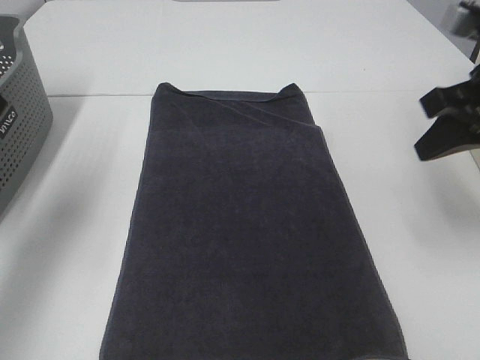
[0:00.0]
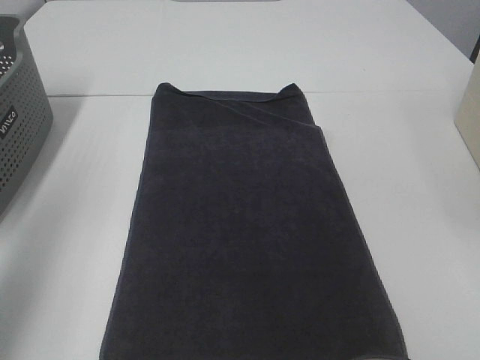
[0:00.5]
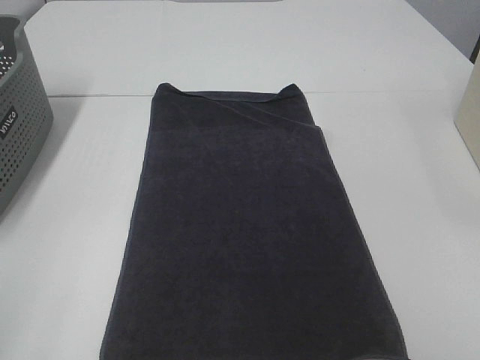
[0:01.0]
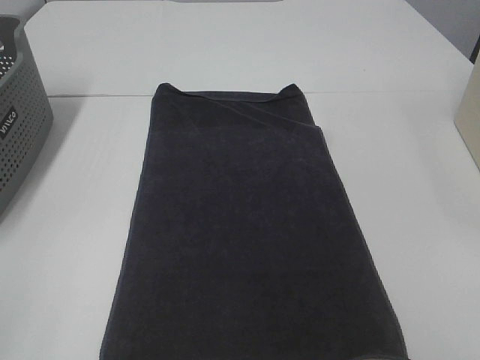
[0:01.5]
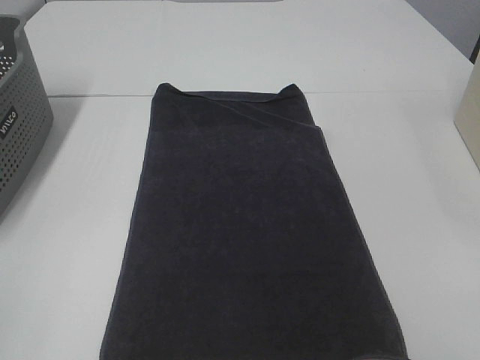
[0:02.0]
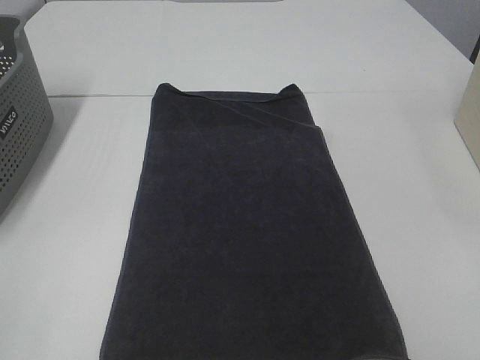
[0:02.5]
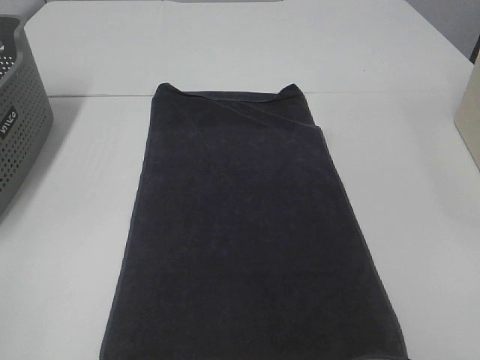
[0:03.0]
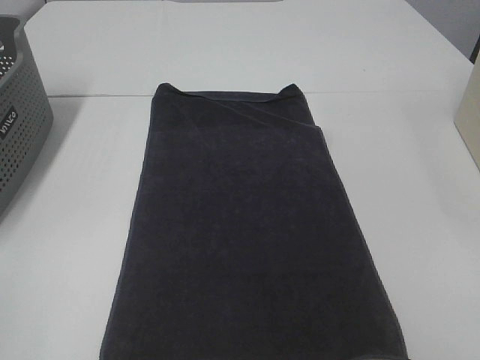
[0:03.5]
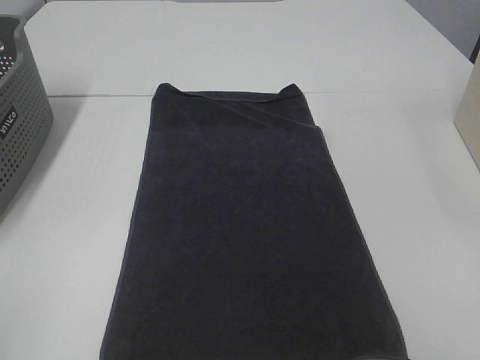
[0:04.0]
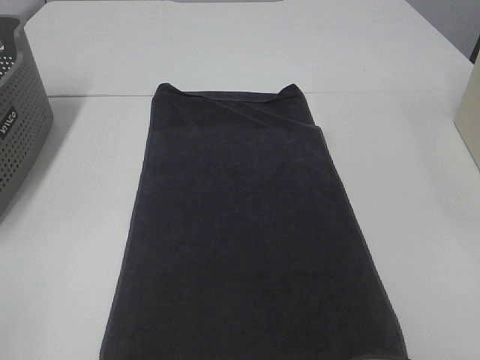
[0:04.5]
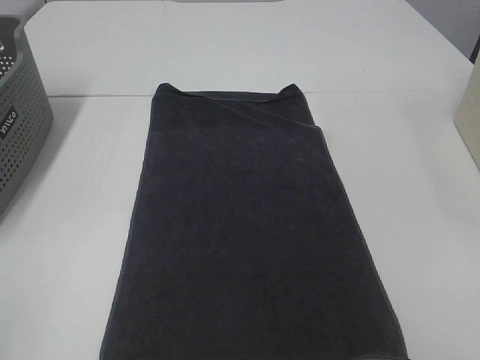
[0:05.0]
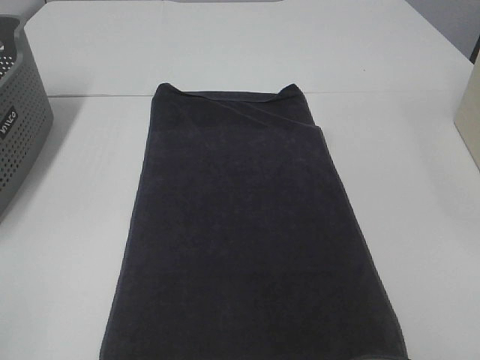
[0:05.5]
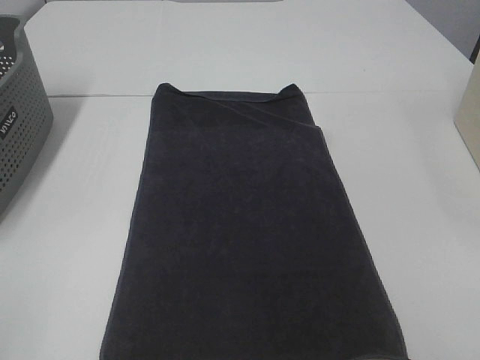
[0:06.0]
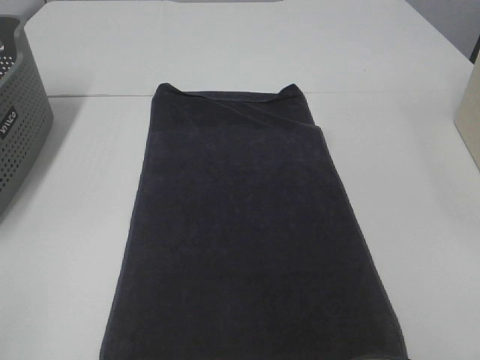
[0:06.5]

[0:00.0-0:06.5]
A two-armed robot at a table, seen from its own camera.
Task of the whole recording: Remove the towel and place it.
0:00.0 to 0:02.0: The two grippers go about 30 cm backward.

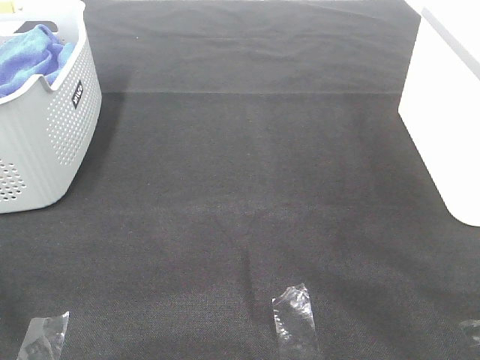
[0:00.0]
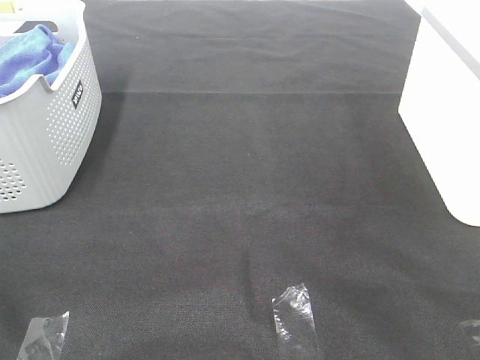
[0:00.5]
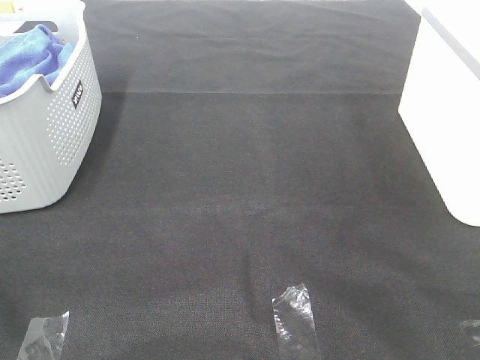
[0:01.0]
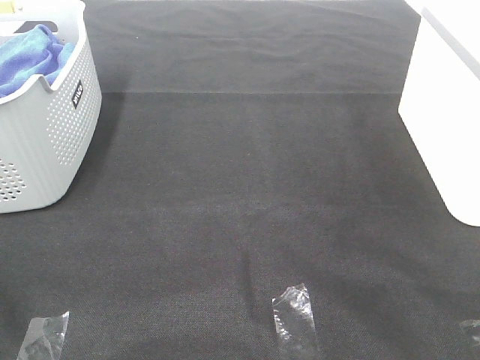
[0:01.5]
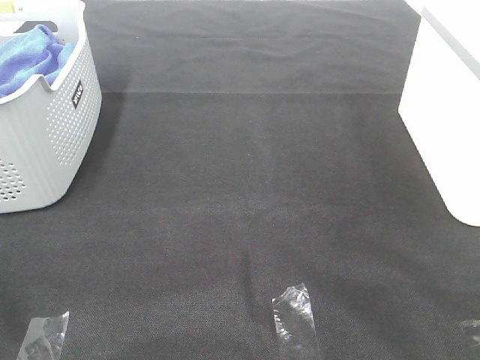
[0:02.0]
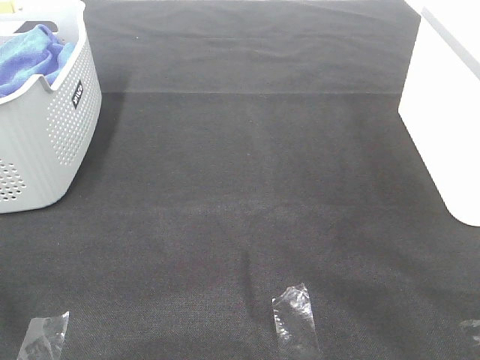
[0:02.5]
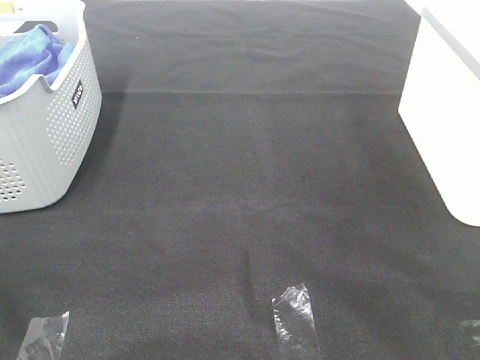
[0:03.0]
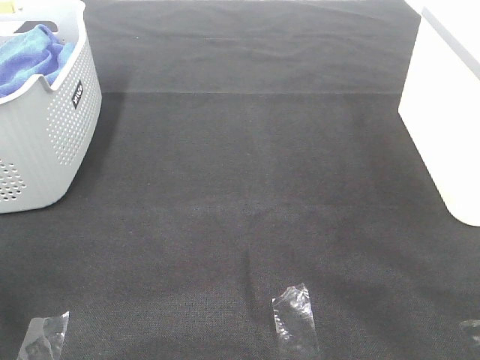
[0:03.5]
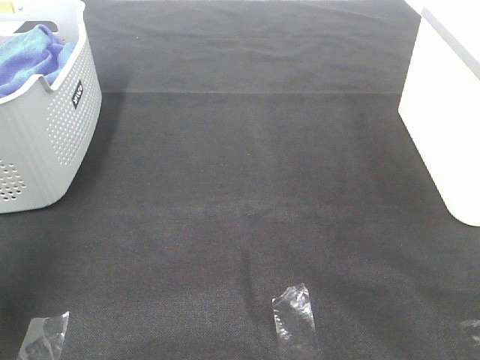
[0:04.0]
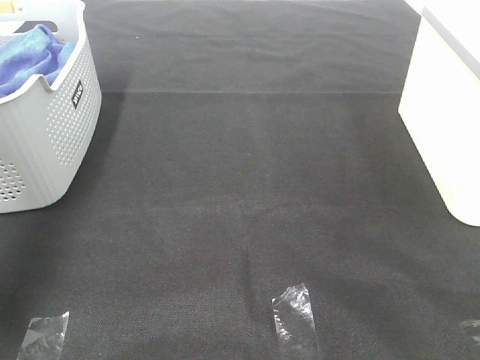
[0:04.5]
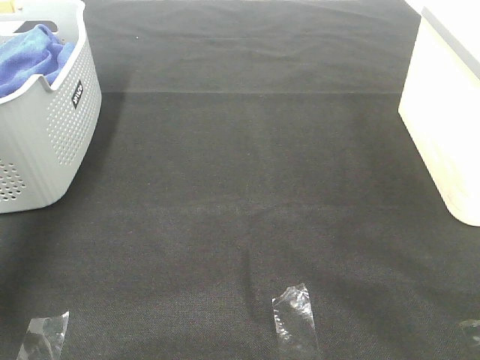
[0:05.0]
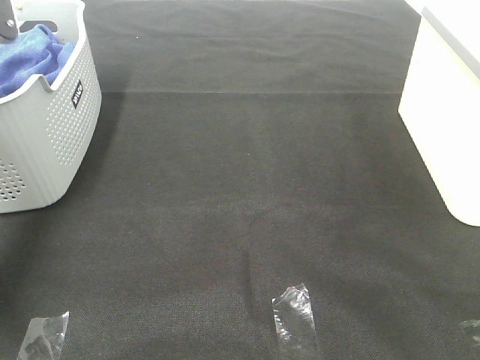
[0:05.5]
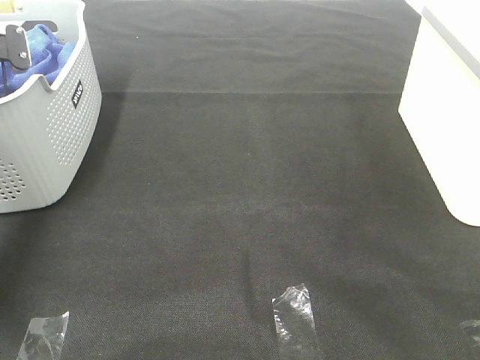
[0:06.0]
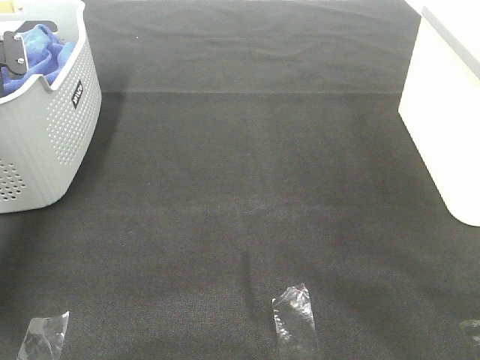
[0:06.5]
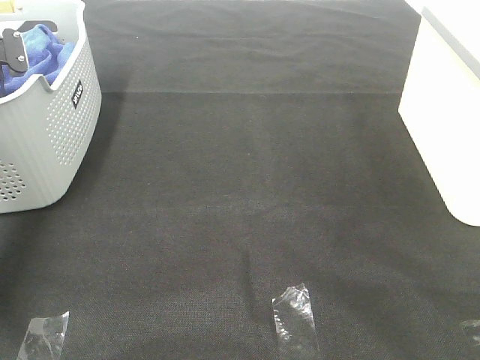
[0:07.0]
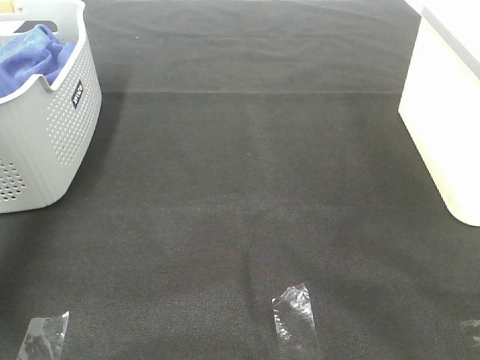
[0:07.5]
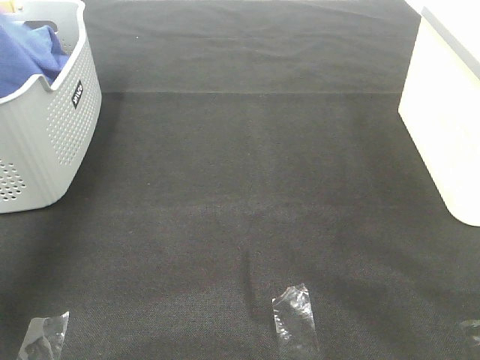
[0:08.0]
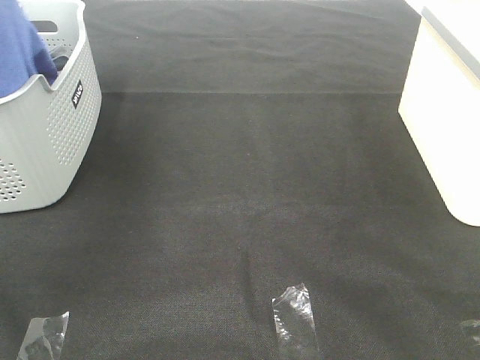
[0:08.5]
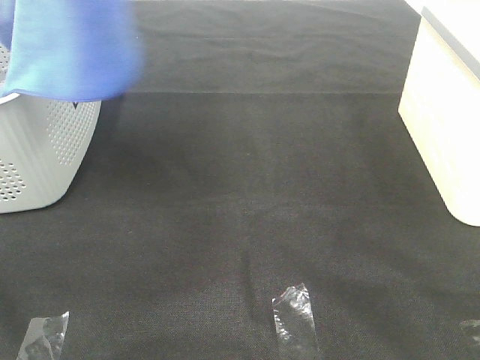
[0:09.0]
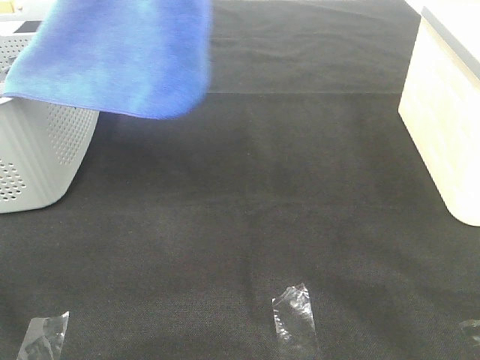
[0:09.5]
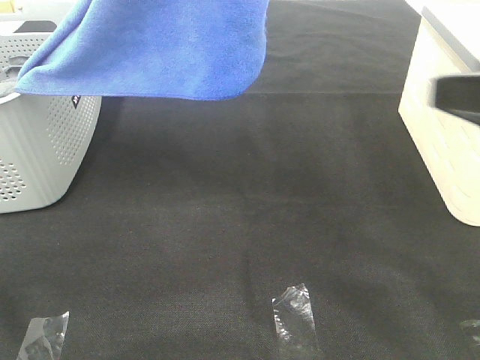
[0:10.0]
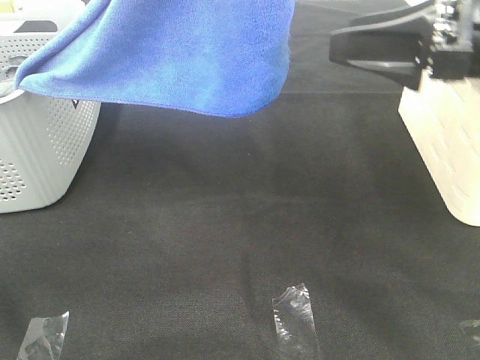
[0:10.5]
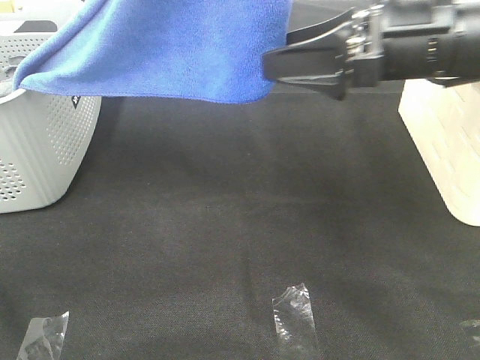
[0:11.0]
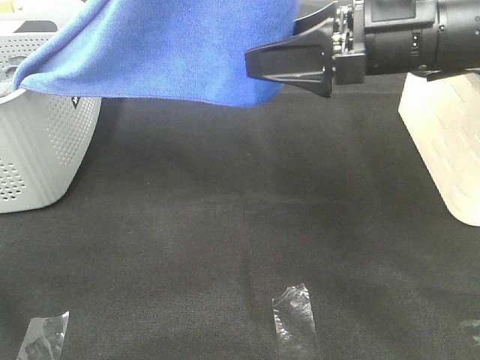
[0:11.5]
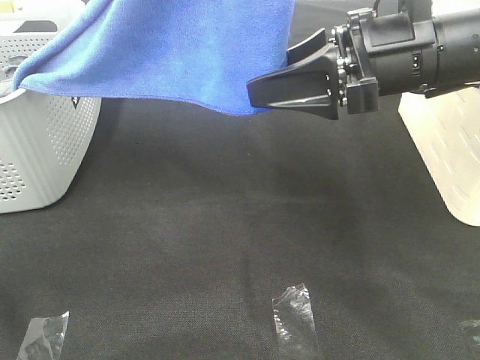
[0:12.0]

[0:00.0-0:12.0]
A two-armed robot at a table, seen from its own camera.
Task of the whole recording: Remove the towel and place it.
0:00.0 to 0:02.0: Both grippers stay put.
0:02.0 to 0:04.0: The left gripper shifts about 25 cm forward and upward.
0:04.0 to 0:06.0: The left gripper goes some 40 cm forward and downward.
0:06.0 to 0:08.0: The left gripper heads upward and backward, covering approximately 30 cm, and closes.
0:08.0 to 0:10.0: The left gripper is displaced to the right by approximately 25 cm; the right gripper shifts some 15 cm forward.
0:10.0 to 0:12.0: The right gripper heads forward and to the left, covering about 15 cm.

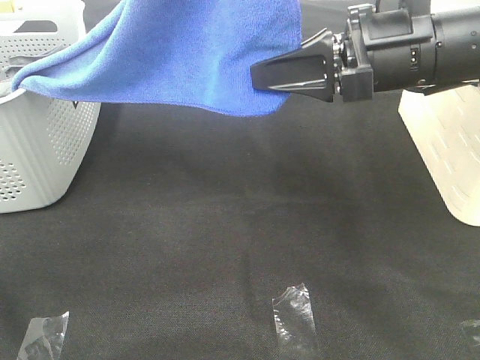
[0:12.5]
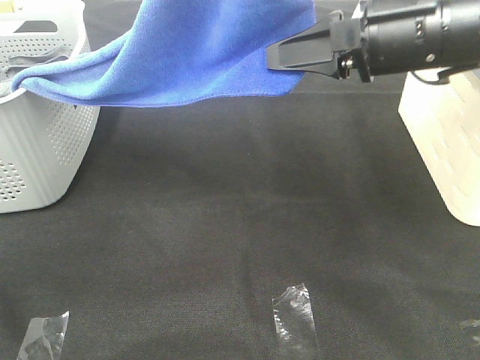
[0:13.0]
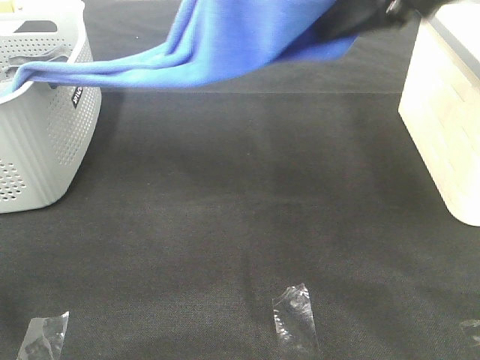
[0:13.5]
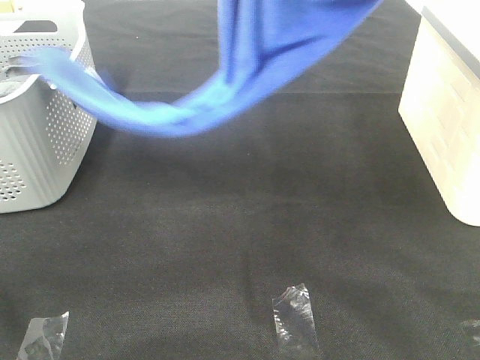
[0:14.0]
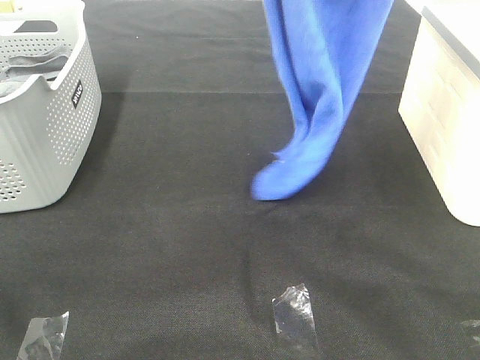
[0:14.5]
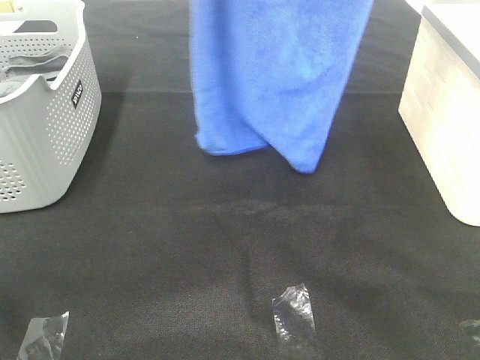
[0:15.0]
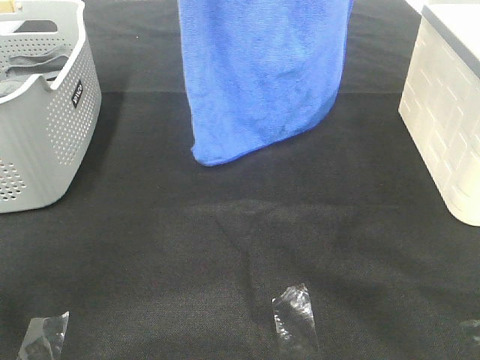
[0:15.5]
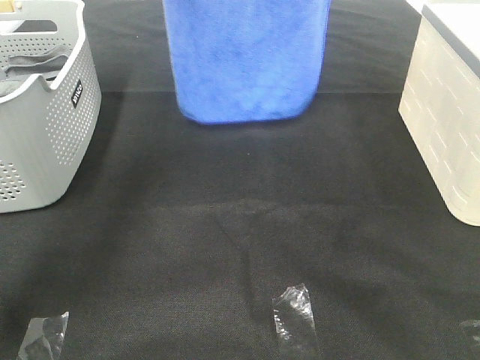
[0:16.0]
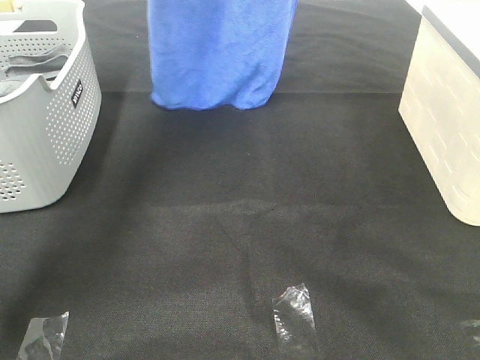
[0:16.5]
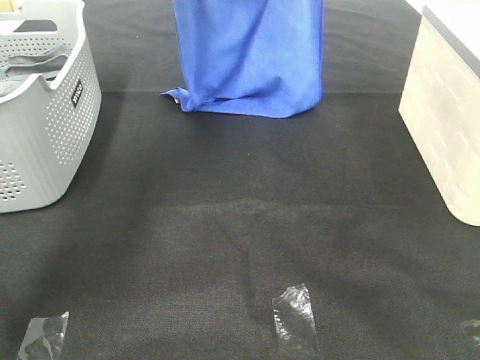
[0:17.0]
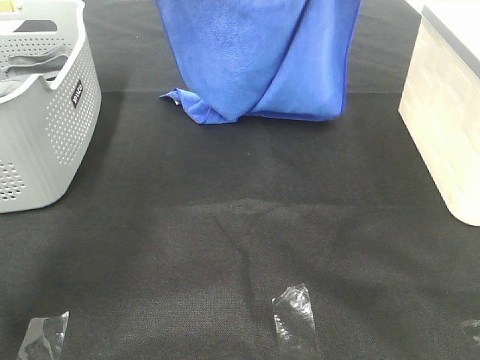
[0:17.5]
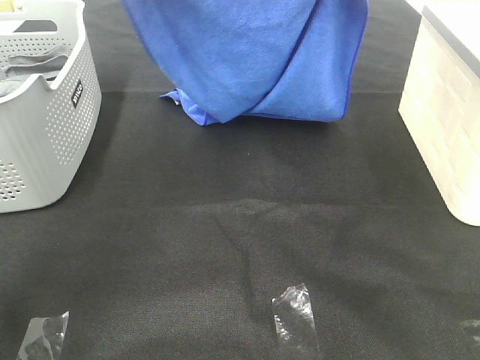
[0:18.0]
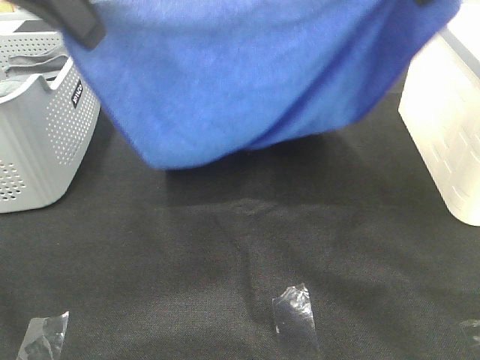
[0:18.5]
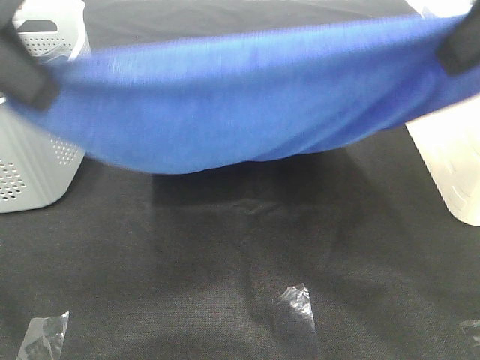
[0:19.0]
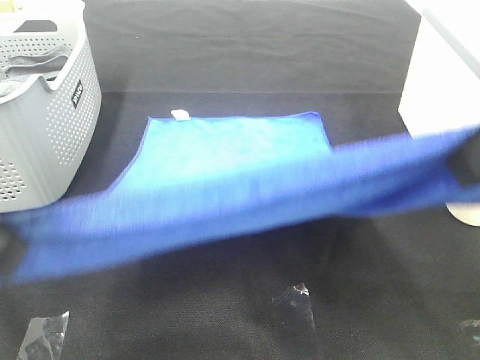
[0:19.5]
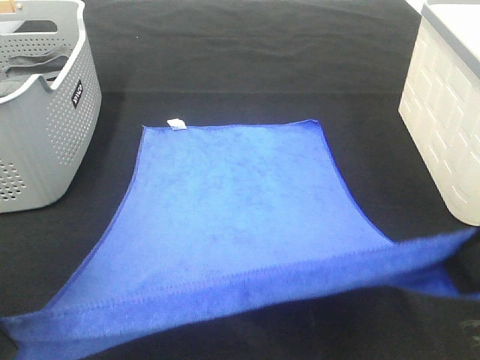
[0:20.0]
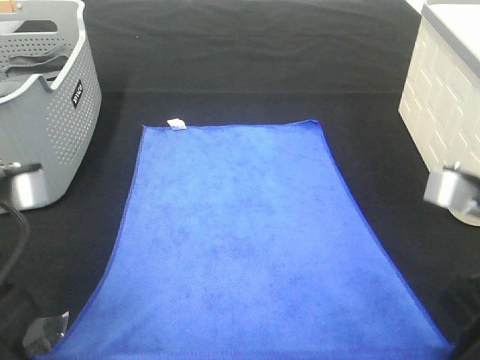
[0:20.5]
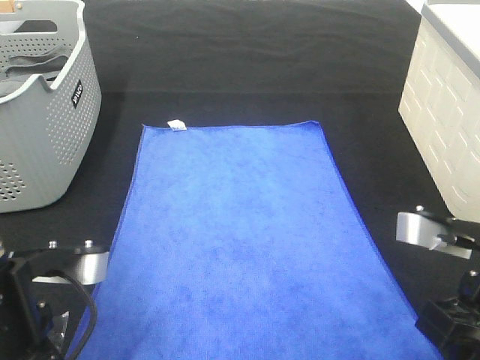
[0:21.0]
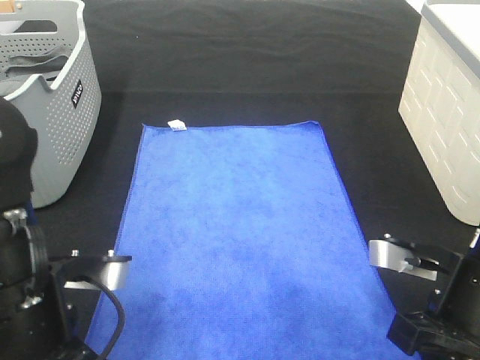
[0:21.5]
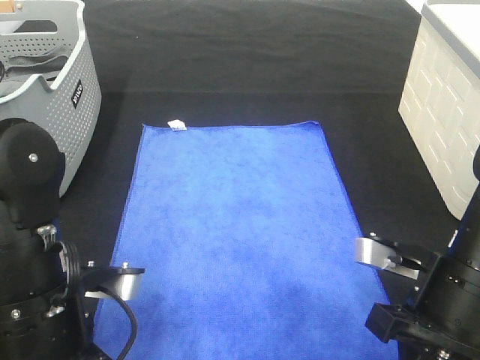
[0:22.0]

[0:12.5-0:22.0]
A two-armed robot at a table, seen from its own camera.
Task of the whole recording: Remove the towel and place it.
Step, 0:13.0 to 0:18.5: Left hand: spread the blue towel flat on the table.
Step, 0:13.0 to 0:18.5: Right hand: spread the blue towel flat on the table.
0:12.5 to 0:14.5: The right gripper travels upward by about 25 cm. The left gripper heads forward, covering approximately 5 cm.
0:14.5 to 0:16.5: Both grippers travel together forward, about 20 cm.
0:16.5 to 0:18.0: The two grippers go some 10 cm backward.
0:18.0 to 0:20.0: Both grippers travel together backward and downward, about 30 cm.
0:20.0 to 0:22.0: The right gripper is displaced downward by some 15 cm; the left gripper goes some 15 cm downward and to the right.
